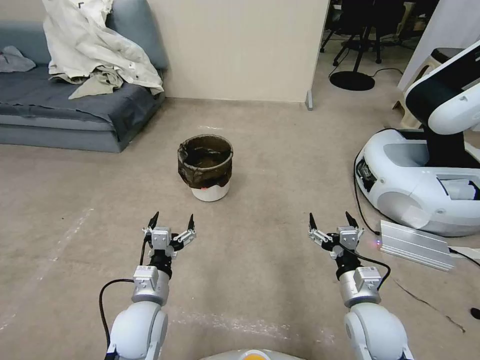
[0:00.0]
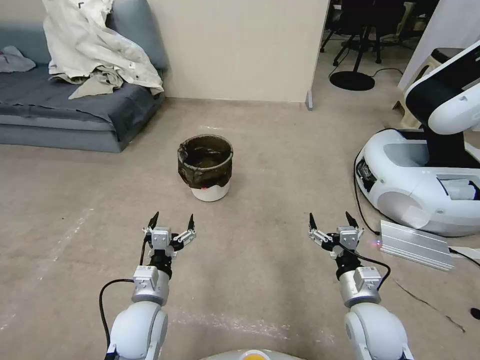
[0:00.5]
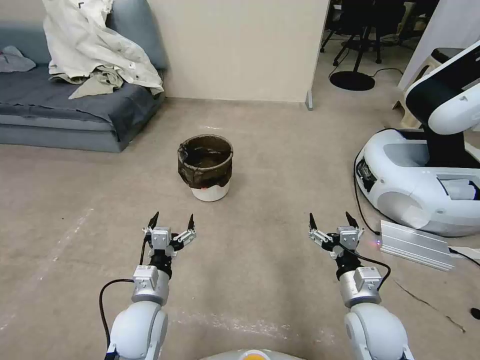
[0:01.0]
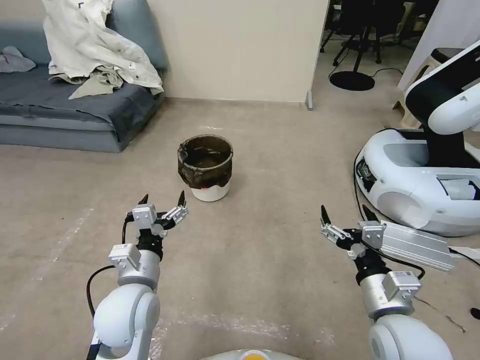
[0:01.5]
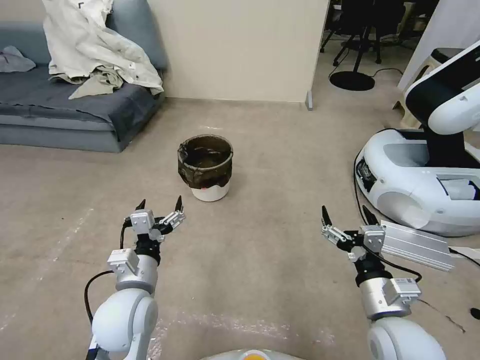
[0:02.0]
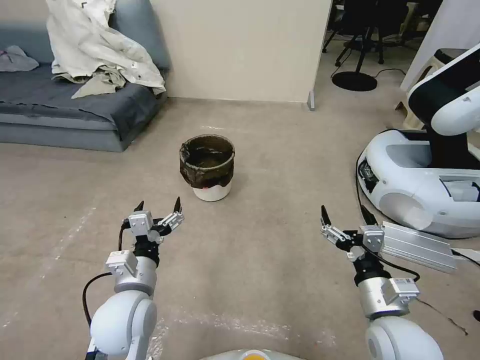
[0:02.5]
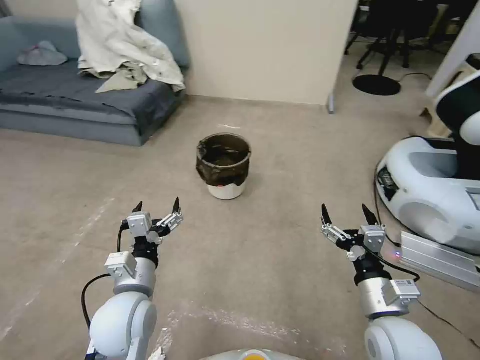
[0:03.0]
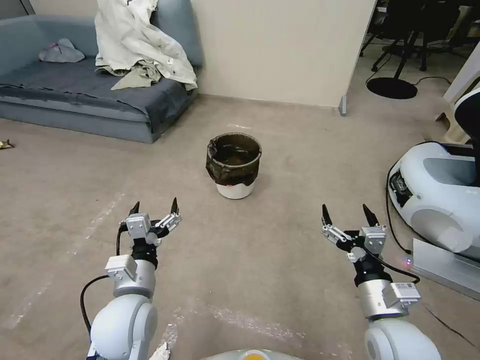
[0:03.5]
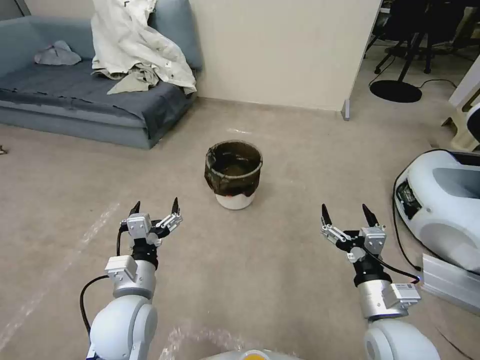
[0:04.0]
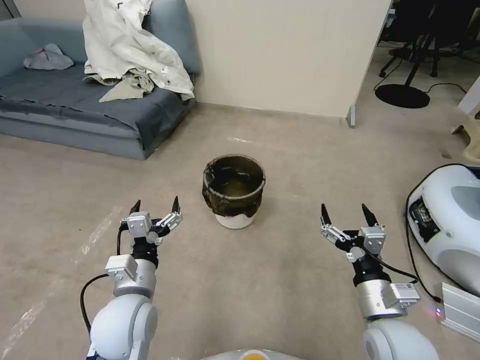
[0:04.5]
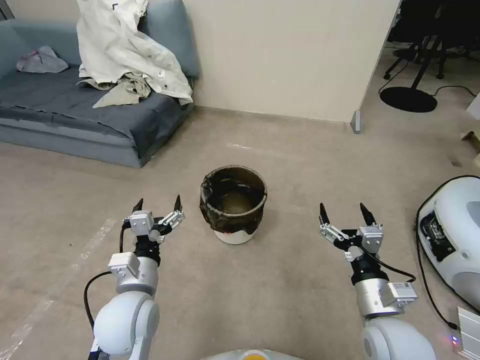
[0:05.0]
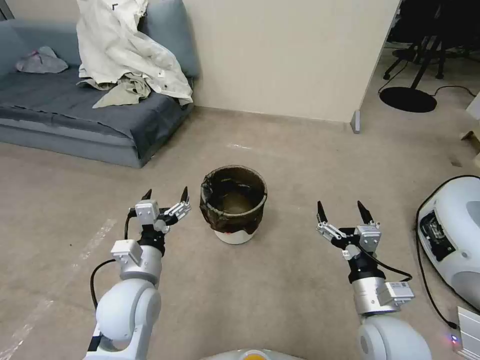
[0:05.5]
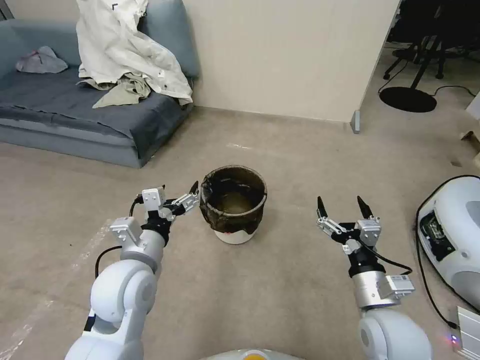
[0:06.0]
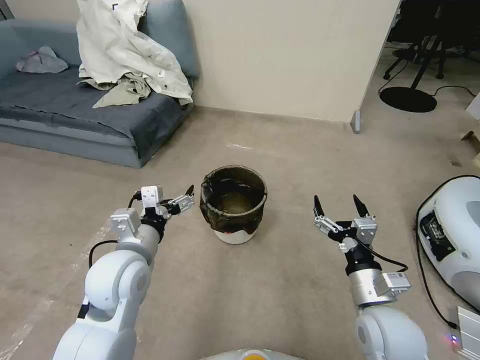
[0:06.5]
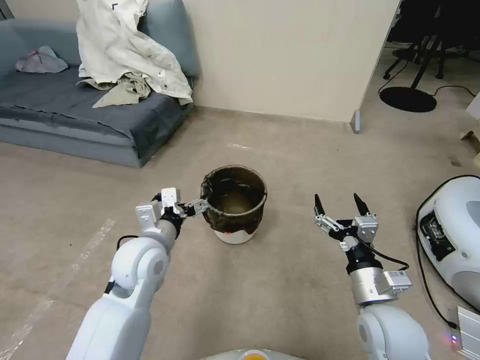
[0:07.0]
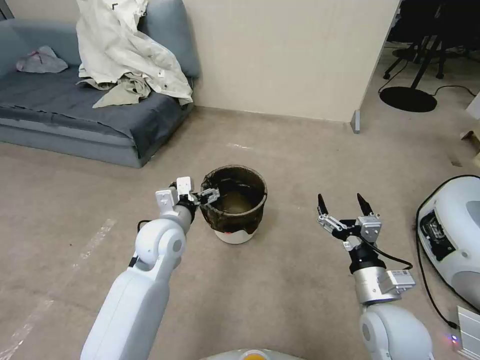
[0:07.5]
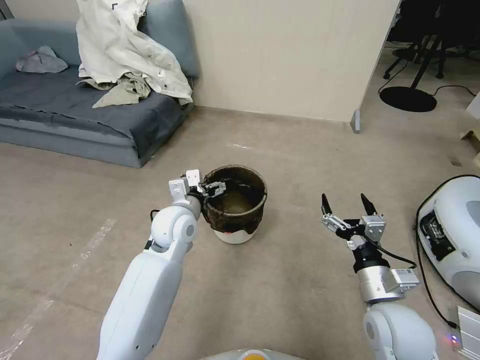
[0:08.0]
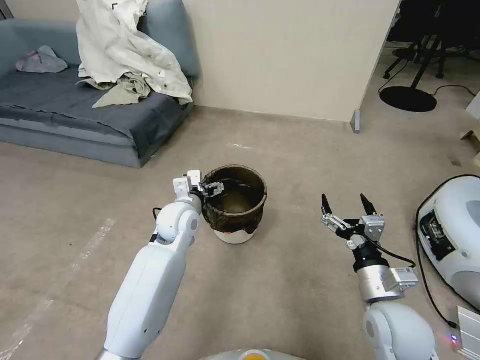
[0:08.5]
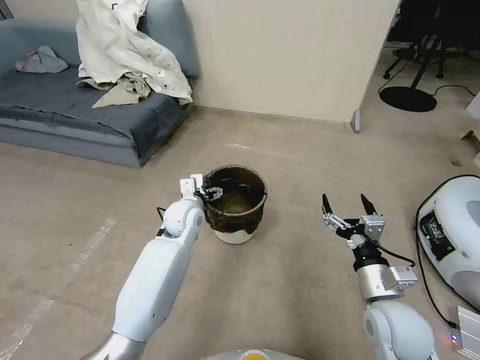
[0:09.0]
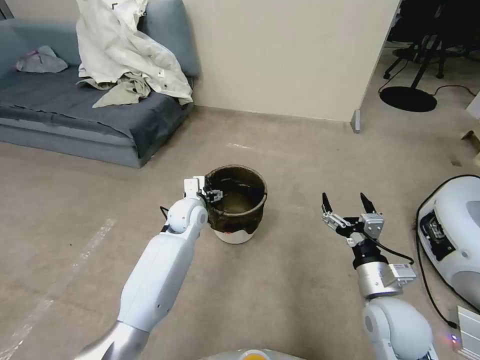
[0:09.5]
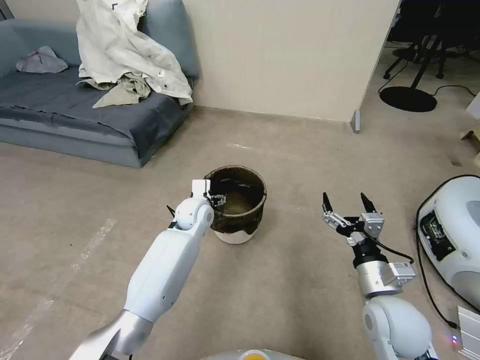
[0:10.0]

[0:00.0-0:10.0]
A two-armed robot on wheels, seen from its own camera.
Task of the whole recording: Pick up the trash can from the floor.
0:04.0 to 0:06.0: The left gripper moves upward, about 5 cm.
0:06.0 to 0:08.0: The left gripper is displaced forward by about 15 cm.
0:08.0 to 0:10.0: The left gripper goes some 10 cm forward and downward.

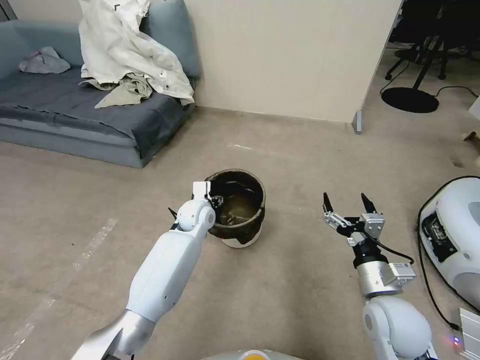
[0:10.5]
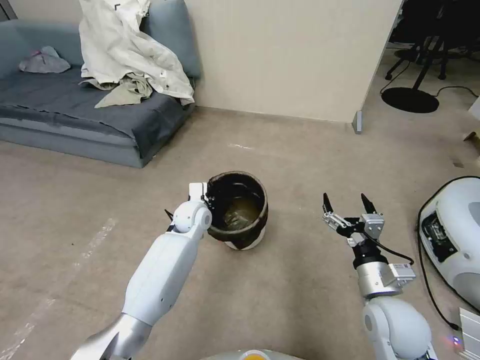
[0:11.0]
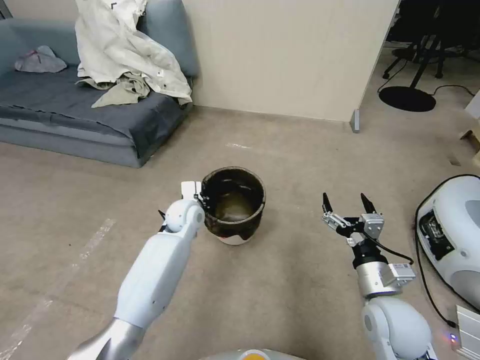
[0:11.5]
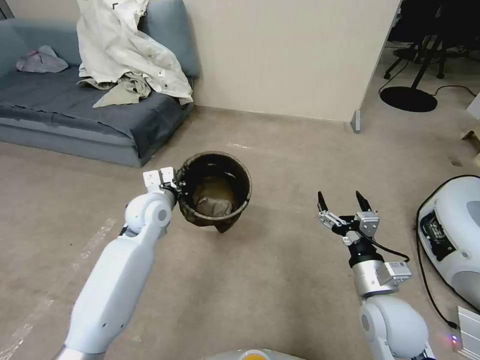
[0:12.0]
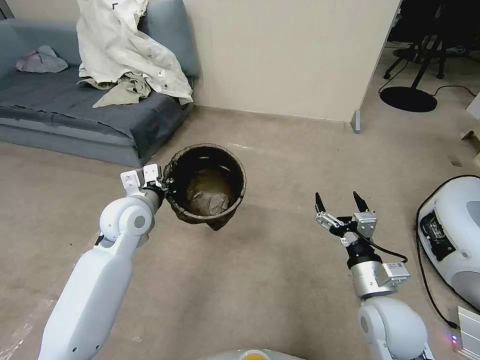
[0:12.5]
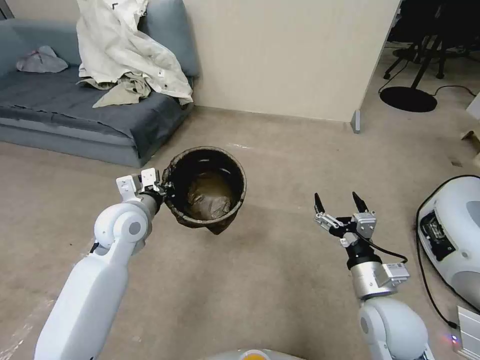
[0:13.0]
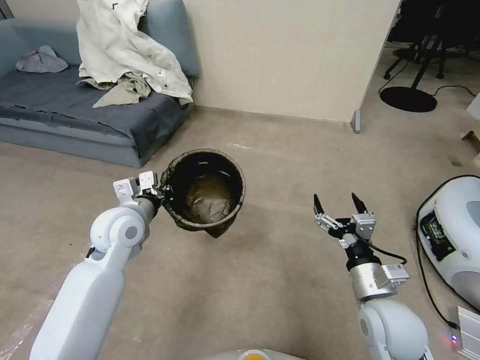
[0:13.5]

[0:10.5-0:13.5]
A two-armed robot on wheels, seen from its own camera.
Task of the whole recording: Pick up the trash can from the floor.
0:10.5 to 0:12.0: The left gripper goes roughly 15 cm upward, to the left and backward, and closes.
0:12.0 to 0:13.5: The left gripper goes roughly 5 cm backward.

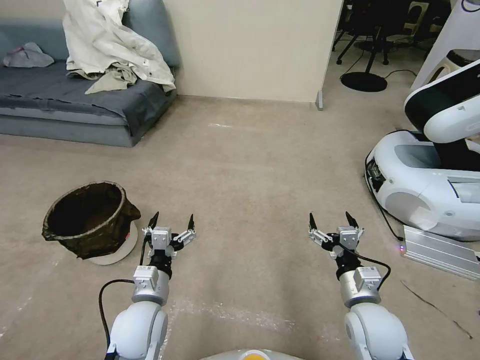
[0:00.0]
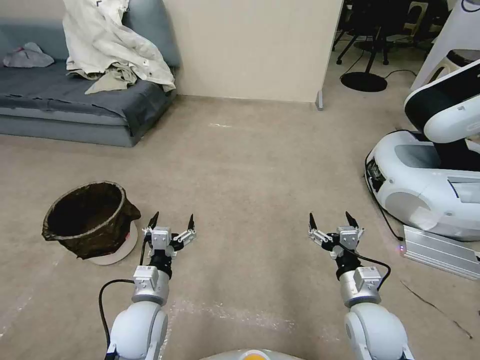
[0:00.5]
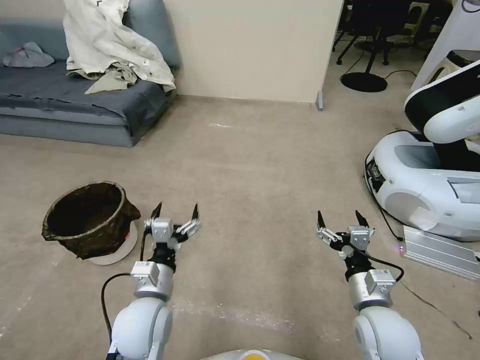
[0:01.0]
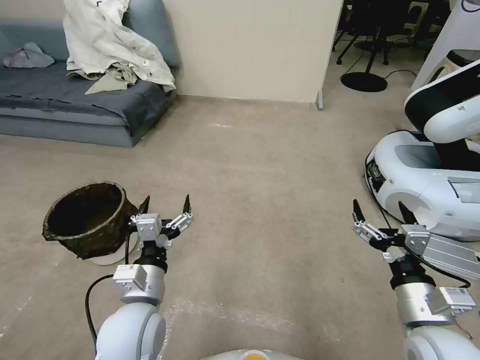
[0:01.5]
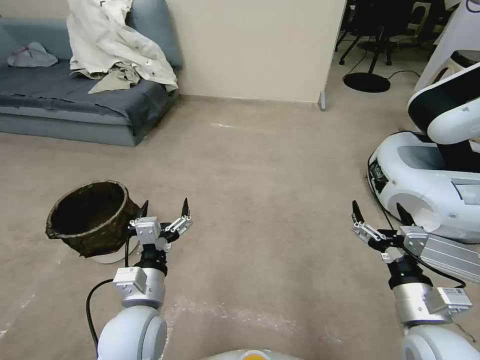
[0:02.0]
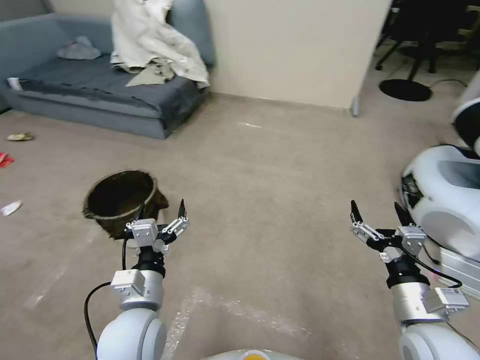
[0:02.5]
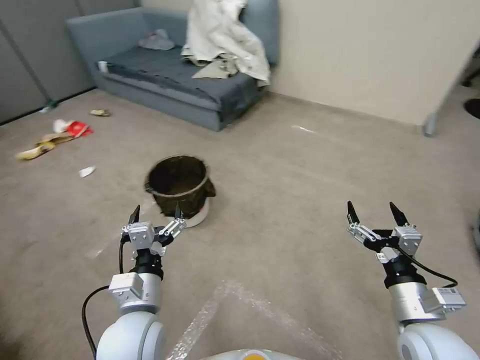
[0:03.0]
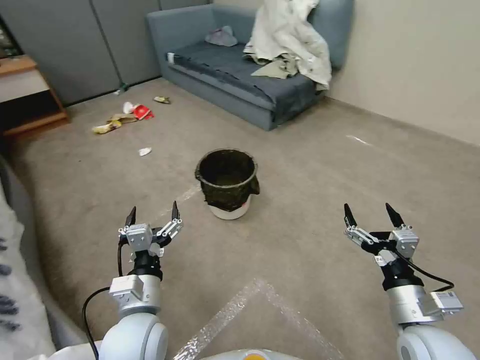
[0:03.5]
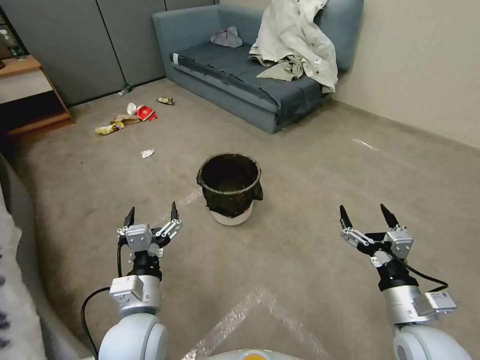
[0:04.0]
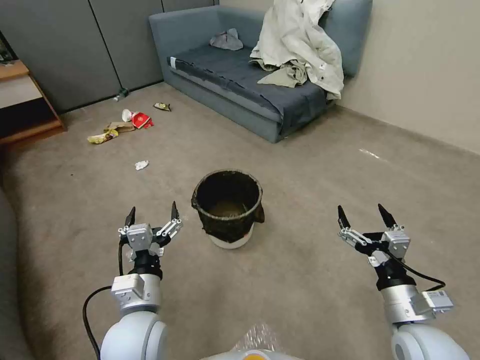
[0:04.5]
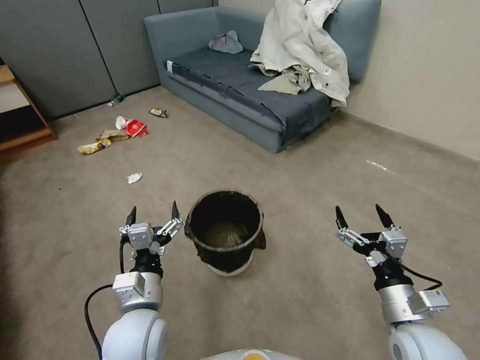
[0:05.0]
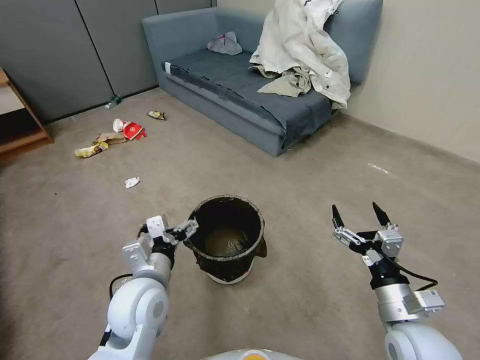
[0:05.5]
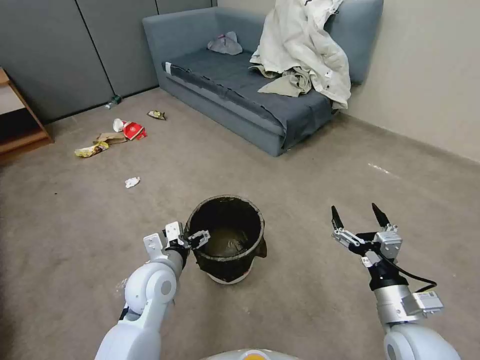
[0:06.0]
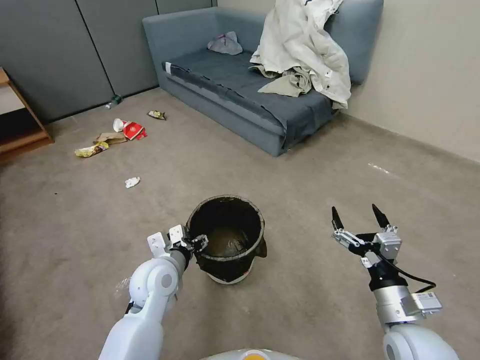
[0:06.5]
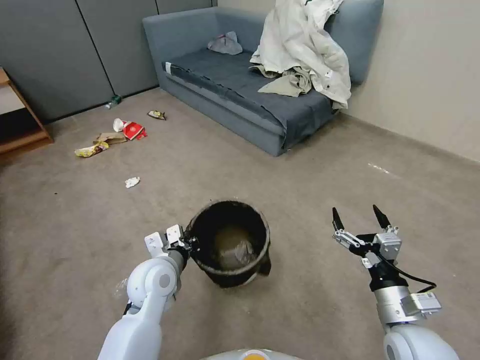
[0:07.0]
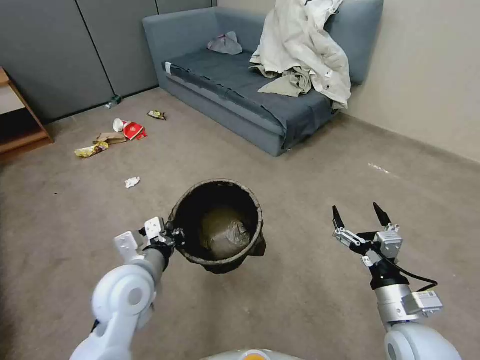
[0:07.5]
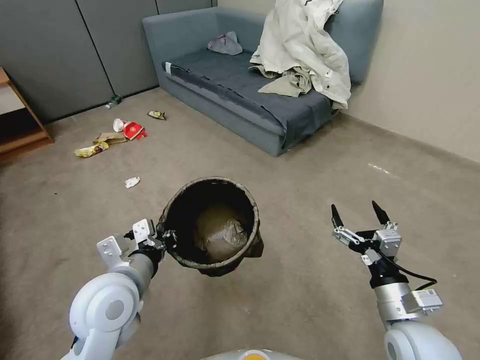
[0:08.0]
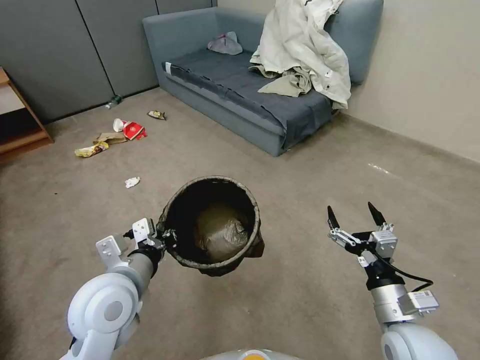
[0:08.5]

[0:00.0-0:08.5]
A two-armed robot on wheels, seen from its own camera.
Task of the whole recording: Pick up the trash can from the floor.
0:04.0 to 0:06.5: The left gripper heads forward, covering about 10 cm, and closes up.
0:06.5 to 0:08.5: The left gripper heads upward and backward, covering approximately 15 cm, and closes up.

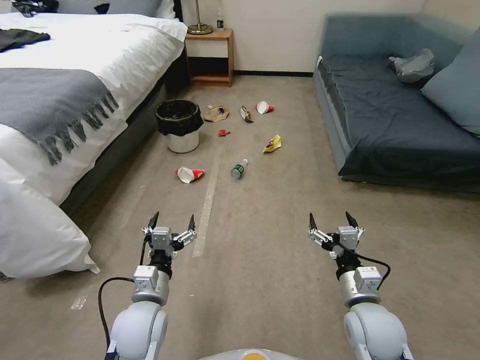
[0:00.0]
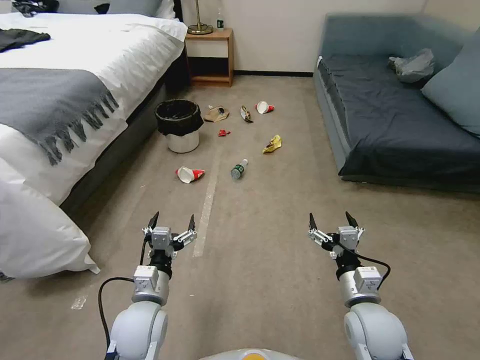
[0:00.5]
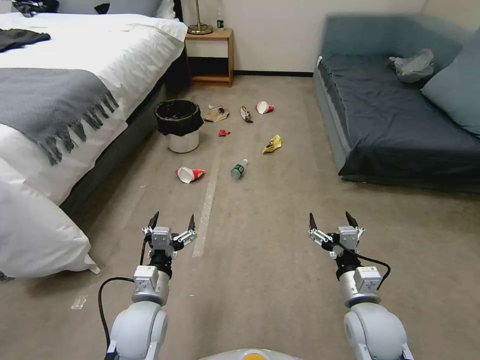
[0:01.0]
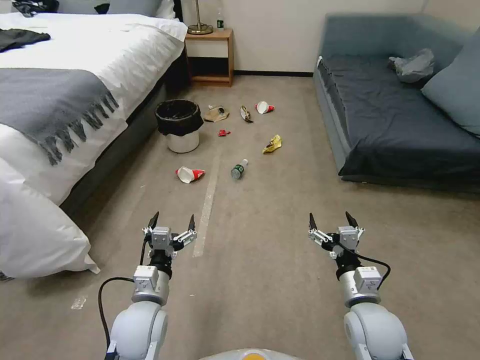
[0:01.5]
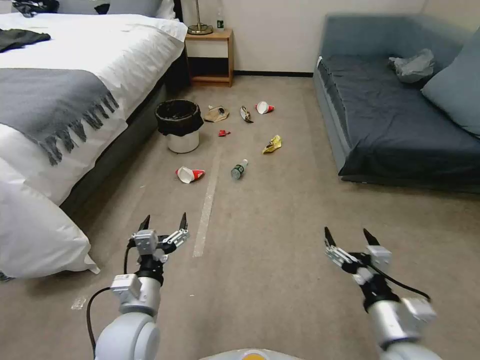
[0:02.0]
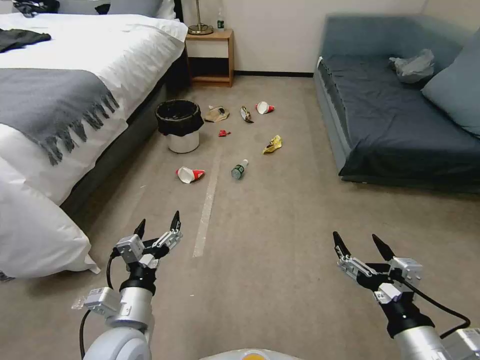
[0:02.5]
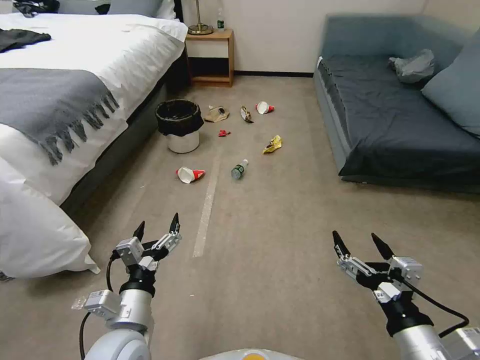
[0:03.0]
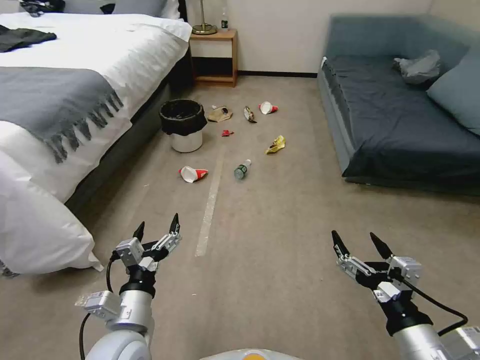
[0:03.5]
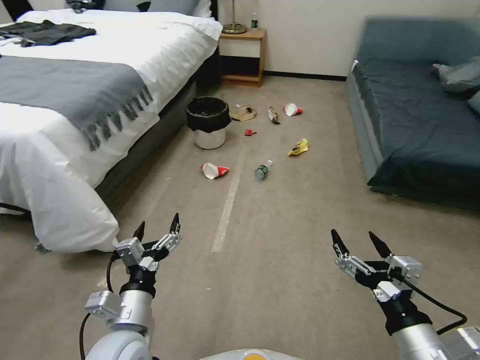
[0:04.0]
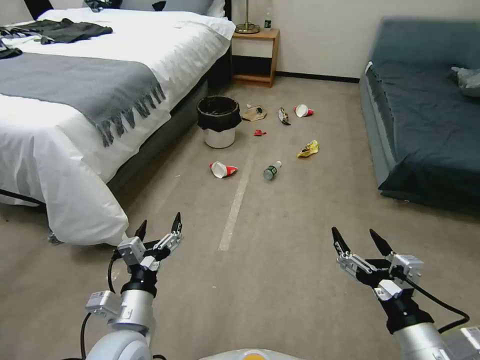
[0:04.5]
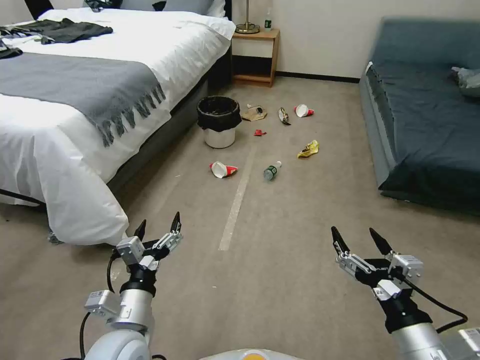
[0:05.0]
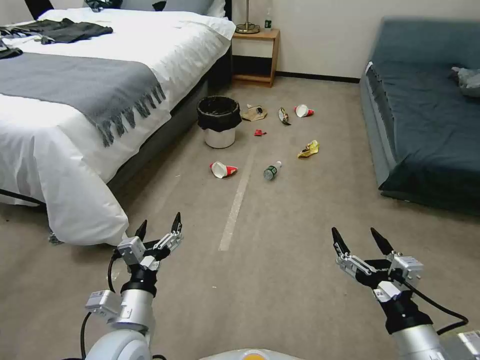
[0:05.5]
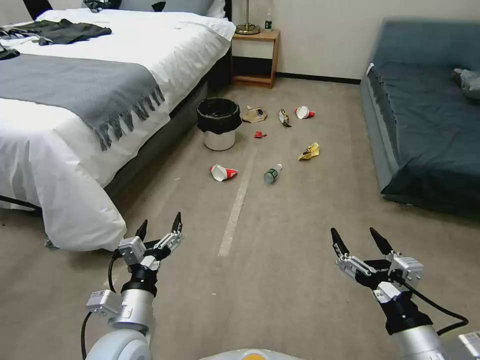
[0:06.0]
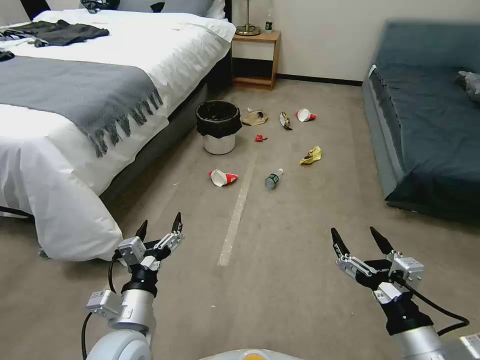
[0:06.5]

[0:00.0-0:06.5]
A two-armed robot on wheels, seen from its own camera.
Task of the whole recording: Pick up the trash can from the floor.
0:02.0 to 0:04.5: The right gripper moves upward, some 5 cm.
0:04.5 to 0:06.5: There are only small adjustments of the grippers.
